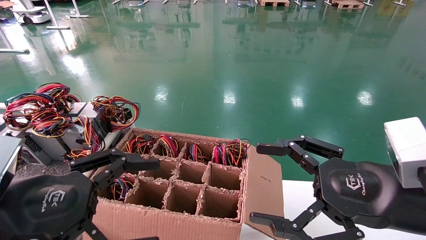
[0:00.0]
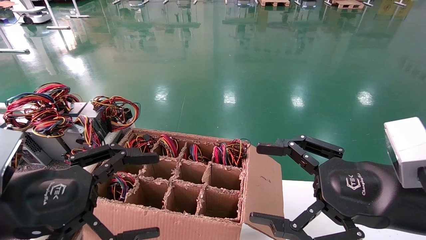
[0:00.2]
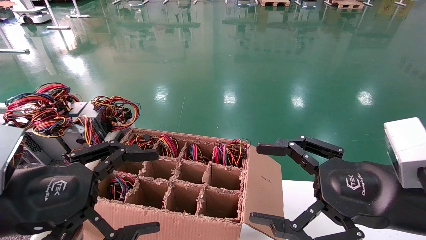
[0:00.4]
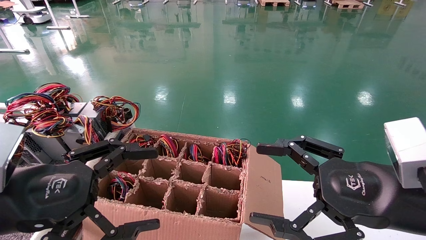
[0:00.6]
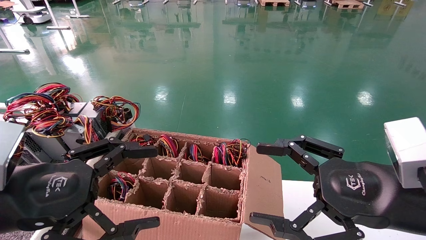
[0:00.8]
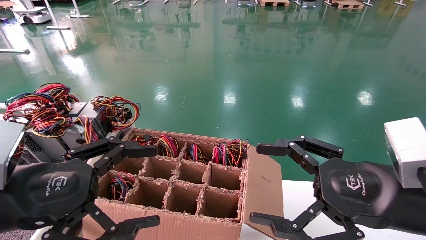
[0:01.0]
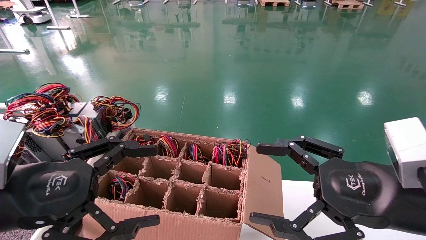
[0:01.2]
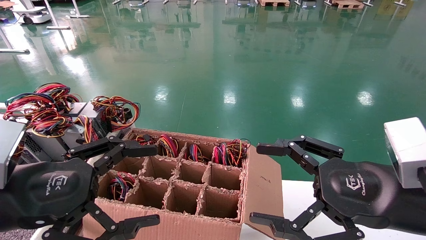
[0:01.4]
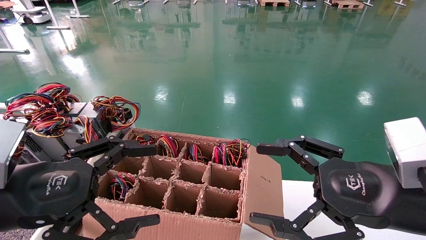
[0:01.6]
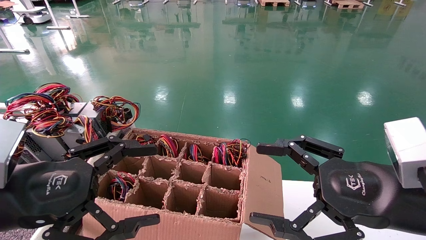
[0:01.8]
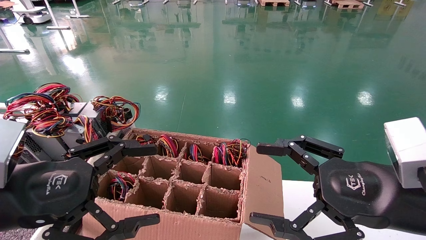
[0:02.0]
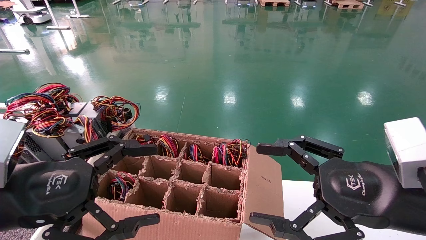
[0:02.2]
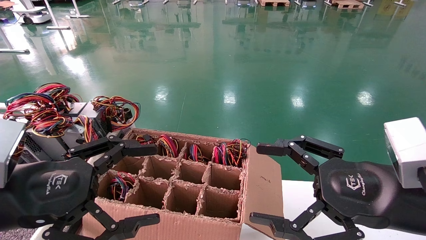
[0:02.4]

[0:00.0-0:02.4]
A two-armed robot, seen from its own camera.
0:00.0 to 0:02.4: The two grippers keep their place.
